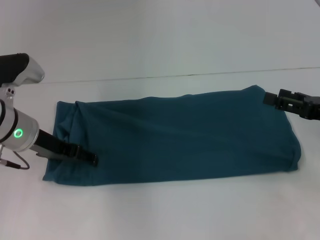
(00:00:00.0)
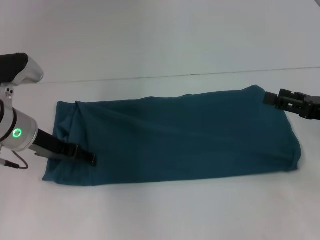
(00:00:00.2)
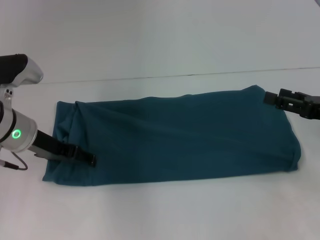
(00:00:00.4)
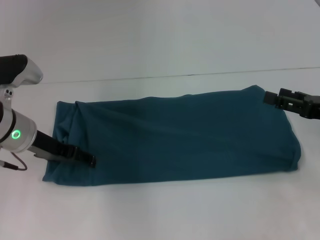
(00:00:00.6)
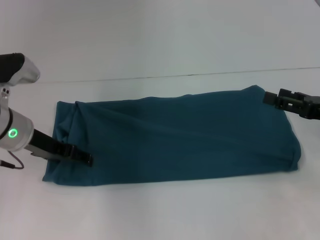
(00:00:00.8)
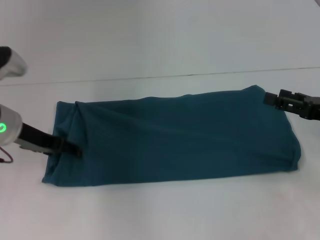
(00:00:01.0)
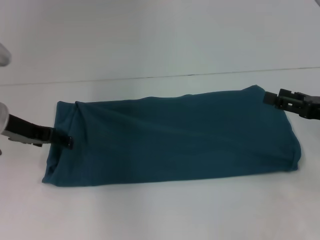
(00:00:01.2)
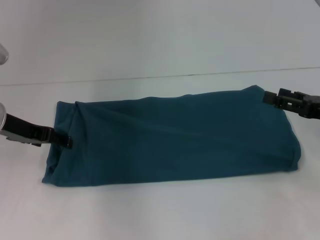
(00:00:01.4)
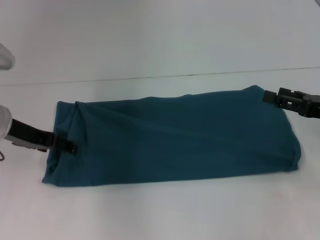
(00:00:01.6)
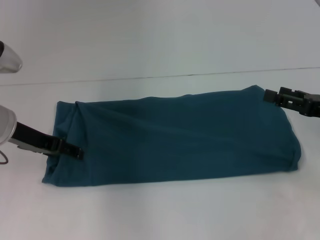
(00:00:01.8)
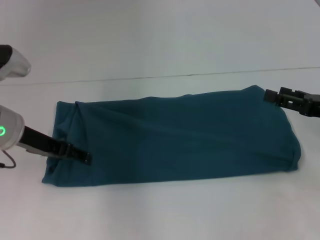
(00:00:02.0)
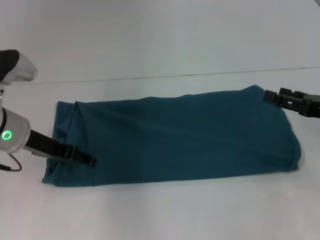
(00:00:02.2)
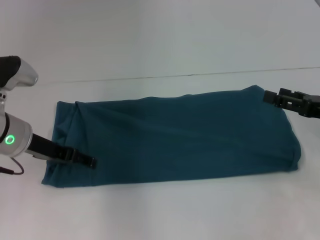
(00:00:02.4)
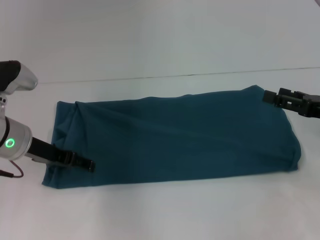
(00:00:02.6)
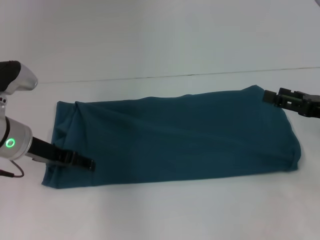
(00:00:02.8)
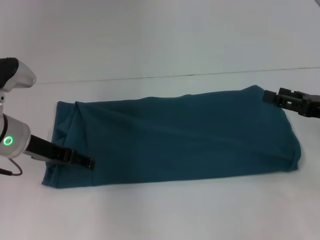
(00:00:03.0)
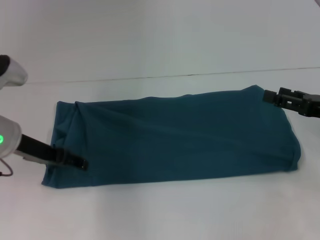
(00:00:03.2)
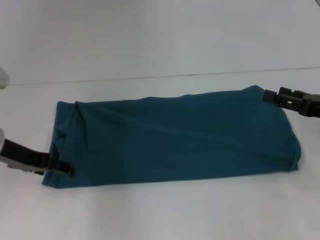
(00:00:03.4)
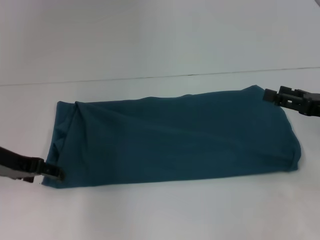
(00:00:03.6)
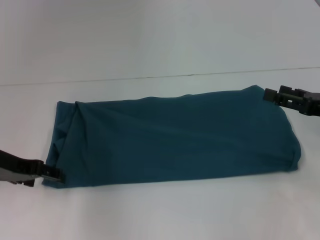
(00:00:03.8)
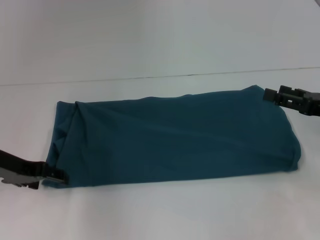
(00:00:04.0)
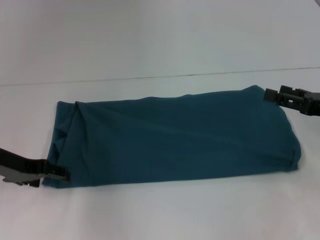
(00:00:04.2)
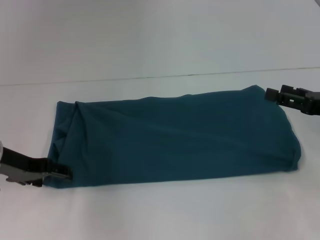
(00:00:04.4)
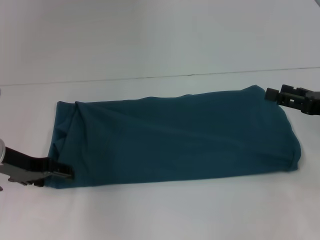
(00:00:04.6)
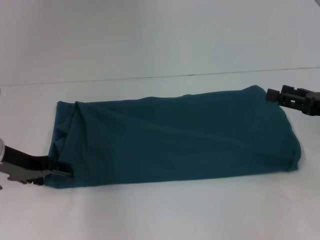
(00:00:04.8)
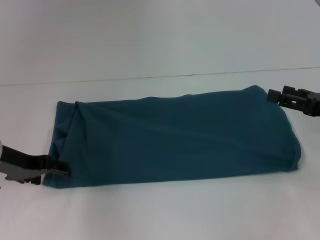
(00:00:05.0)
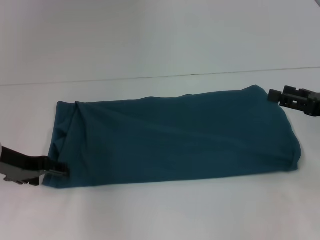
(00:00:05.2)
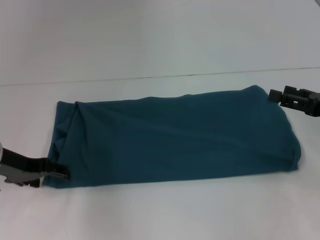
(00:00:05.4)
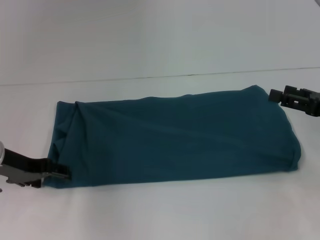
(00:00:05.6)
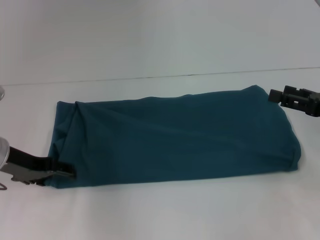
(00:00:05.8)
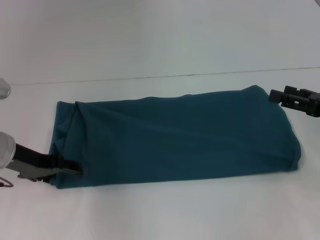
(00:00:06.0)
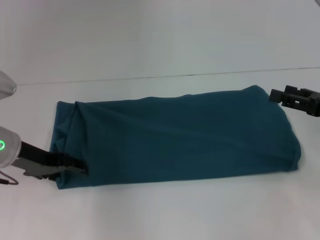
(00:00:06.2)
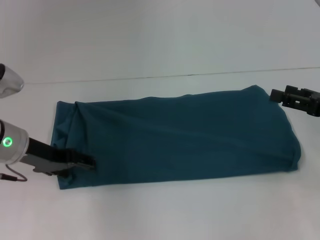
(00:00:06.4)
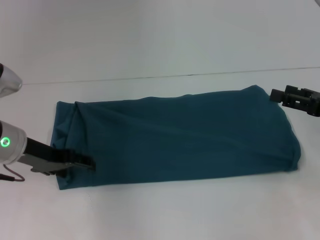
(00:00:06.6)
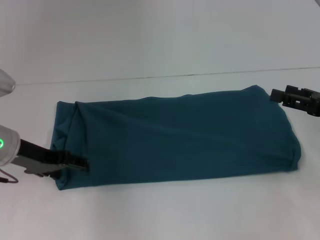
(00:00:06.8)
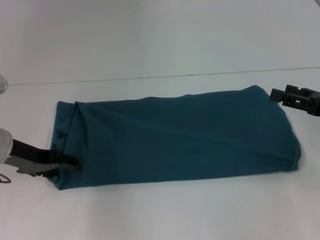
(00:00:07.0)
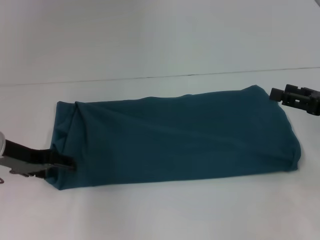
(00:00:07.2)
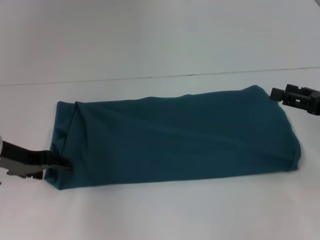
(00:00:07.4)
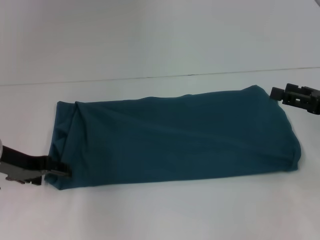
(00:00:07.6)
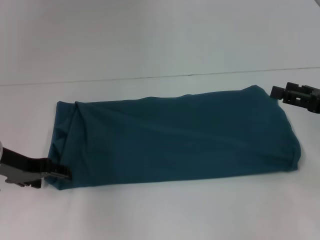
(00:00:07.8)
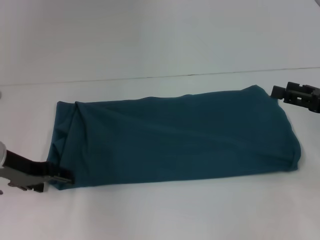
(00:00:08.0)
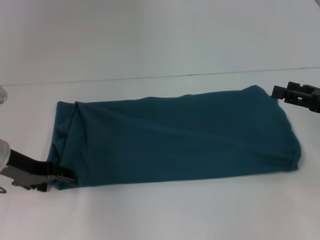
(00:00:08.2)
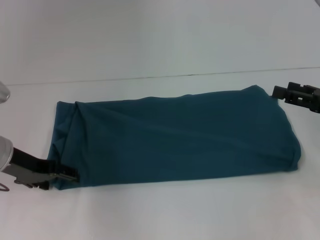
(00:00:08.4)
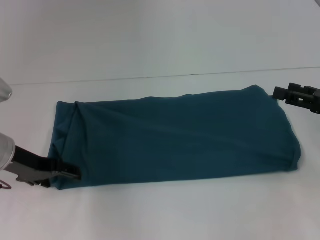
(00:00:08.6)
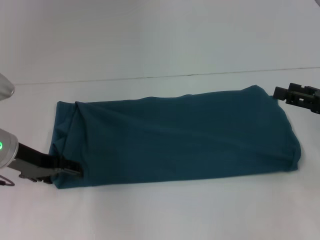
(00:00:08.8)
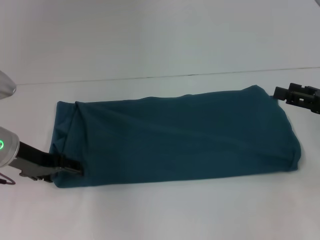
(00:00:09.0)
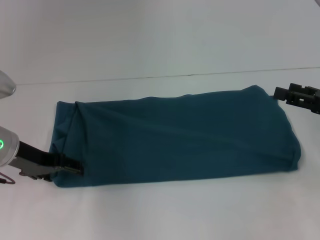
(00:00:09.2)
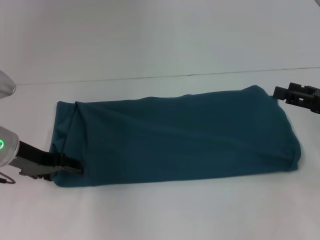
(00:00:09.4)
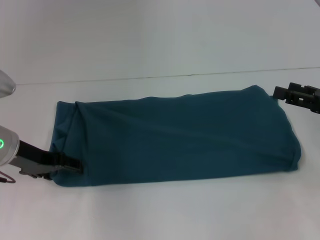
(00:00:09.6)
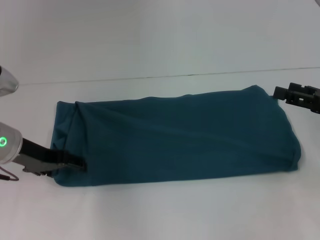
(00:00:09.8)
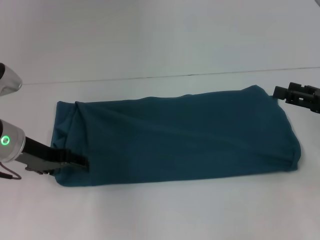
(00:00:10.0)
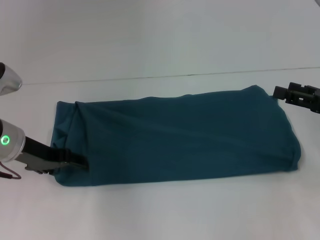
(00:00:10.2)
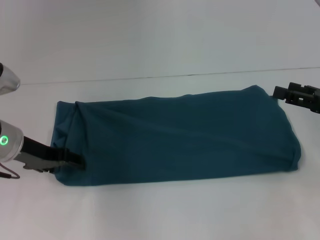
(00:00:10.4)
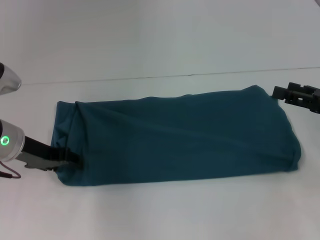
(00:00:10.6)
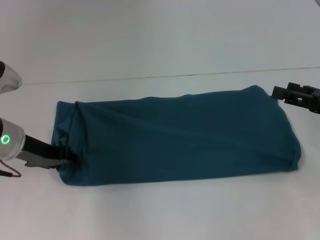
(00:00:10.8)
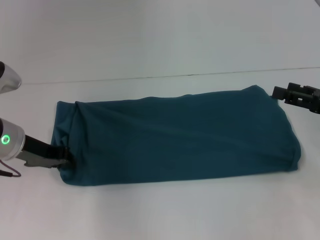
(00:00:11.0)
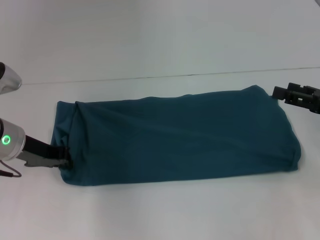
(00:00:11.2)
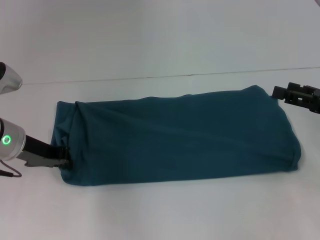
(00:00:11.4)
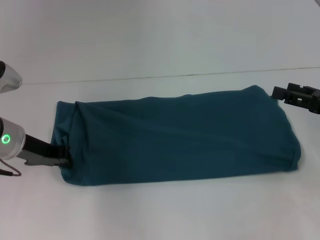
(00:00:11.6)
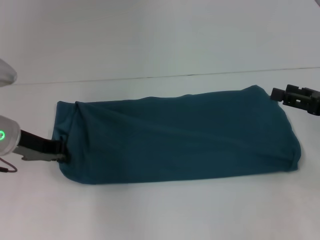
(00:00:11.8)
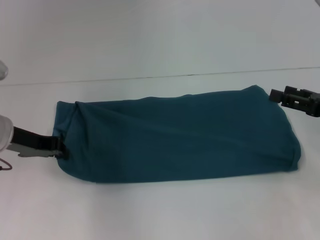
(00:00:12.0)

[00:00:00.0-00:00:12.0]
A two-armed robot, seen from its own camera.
00:00:00.0 to 00:00:03.0: The grippers stay close to where they were, moving slightly.
00:00:03.0 to 00:00:09.0: The grippers make only small movements.
00:00:09.0 to 00:00:10.4: The two grippers keep their place.
00:00:10.4 to 00:00:12.0: The left gripper closes.

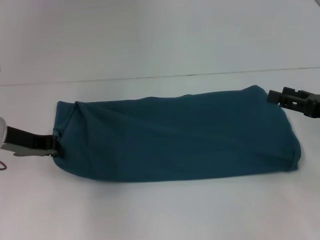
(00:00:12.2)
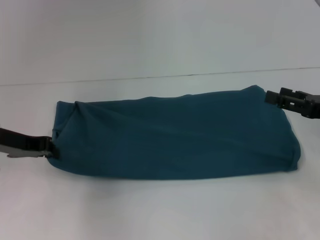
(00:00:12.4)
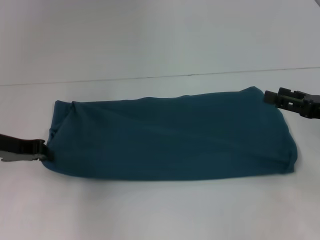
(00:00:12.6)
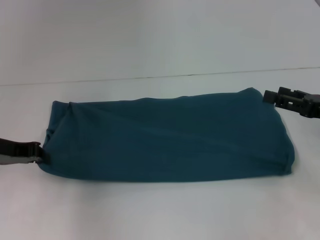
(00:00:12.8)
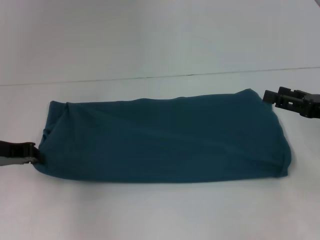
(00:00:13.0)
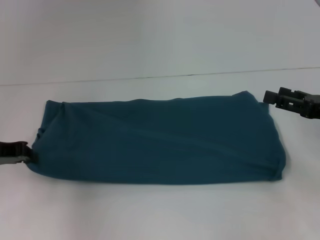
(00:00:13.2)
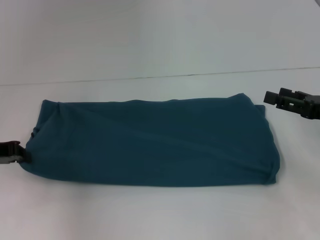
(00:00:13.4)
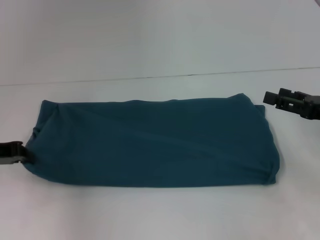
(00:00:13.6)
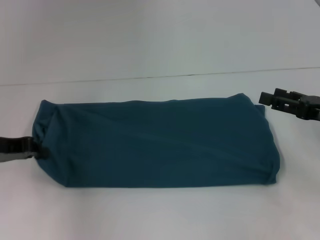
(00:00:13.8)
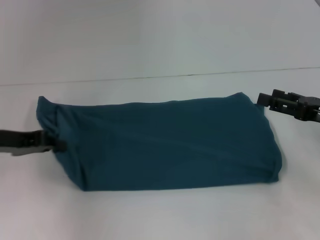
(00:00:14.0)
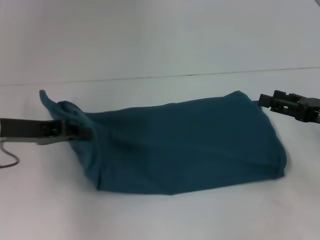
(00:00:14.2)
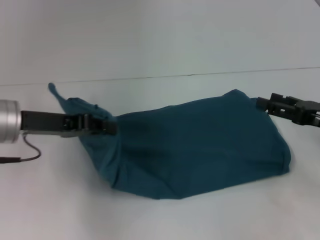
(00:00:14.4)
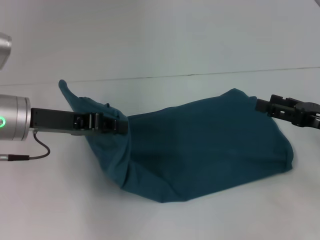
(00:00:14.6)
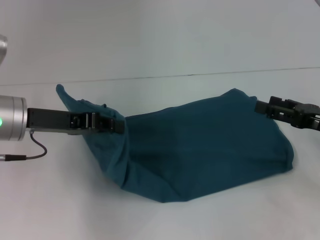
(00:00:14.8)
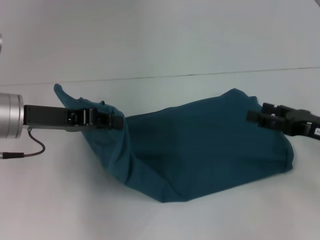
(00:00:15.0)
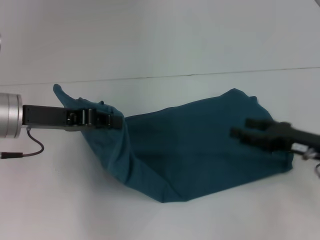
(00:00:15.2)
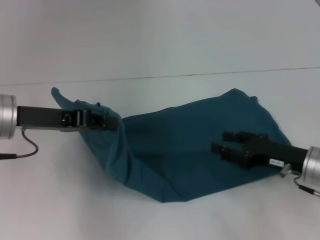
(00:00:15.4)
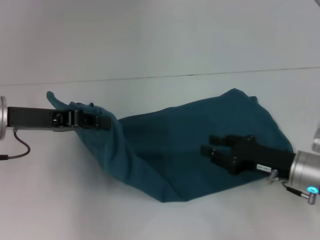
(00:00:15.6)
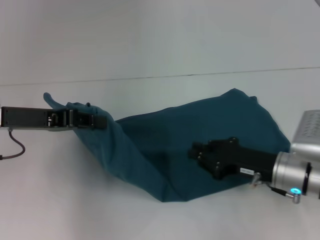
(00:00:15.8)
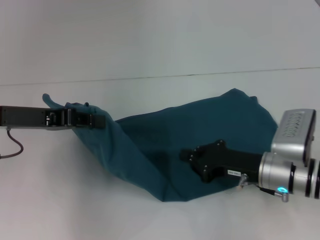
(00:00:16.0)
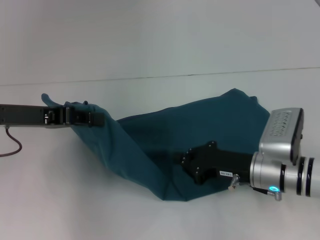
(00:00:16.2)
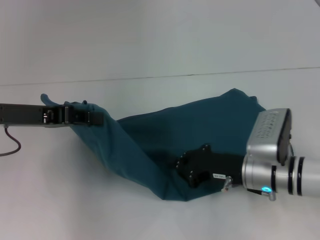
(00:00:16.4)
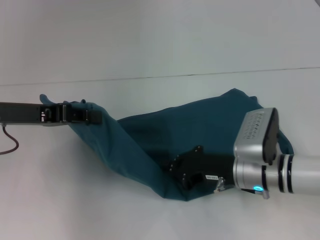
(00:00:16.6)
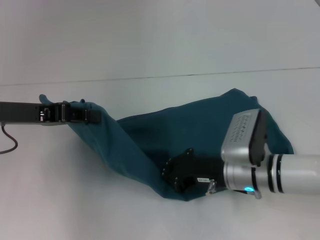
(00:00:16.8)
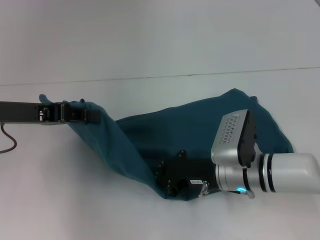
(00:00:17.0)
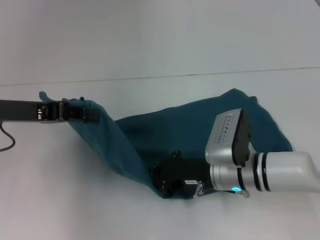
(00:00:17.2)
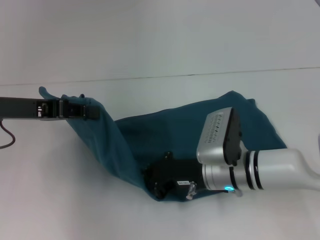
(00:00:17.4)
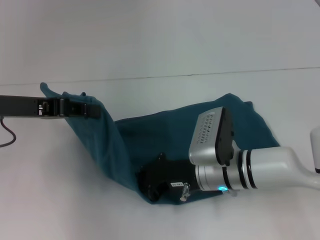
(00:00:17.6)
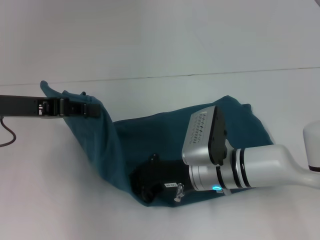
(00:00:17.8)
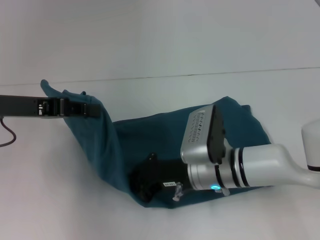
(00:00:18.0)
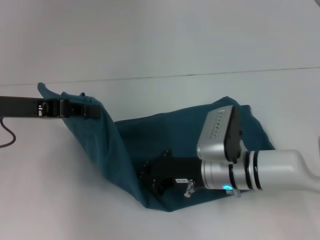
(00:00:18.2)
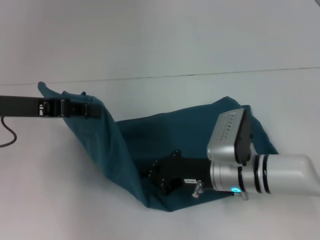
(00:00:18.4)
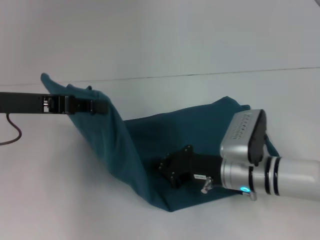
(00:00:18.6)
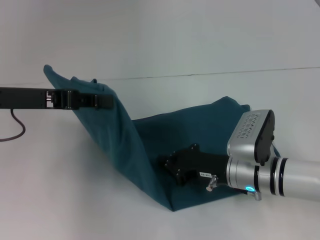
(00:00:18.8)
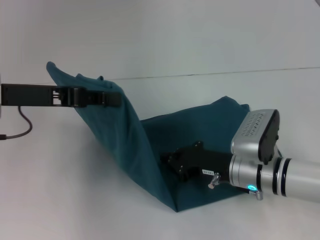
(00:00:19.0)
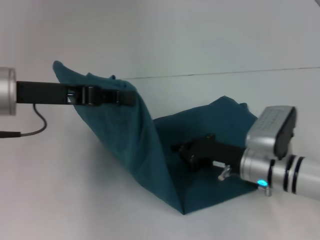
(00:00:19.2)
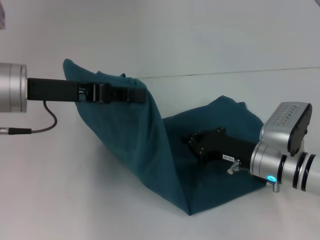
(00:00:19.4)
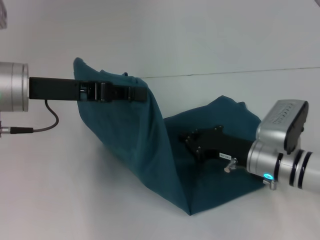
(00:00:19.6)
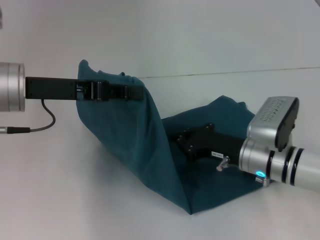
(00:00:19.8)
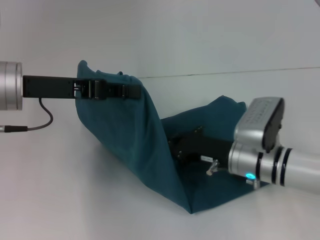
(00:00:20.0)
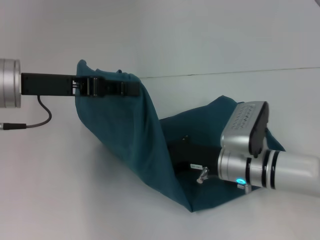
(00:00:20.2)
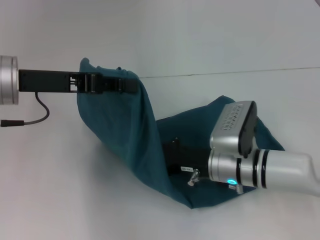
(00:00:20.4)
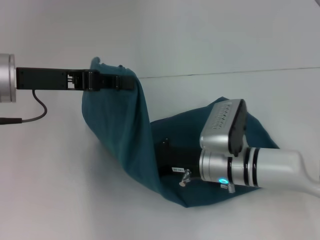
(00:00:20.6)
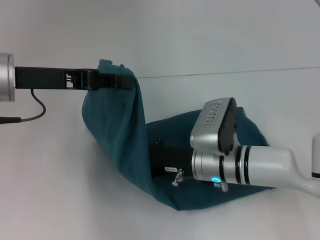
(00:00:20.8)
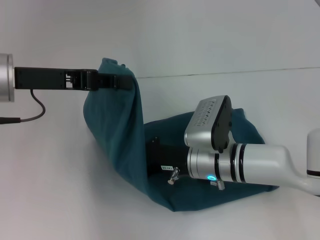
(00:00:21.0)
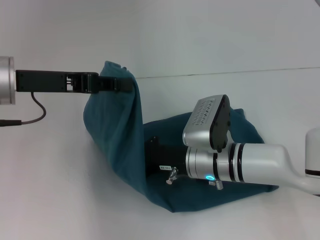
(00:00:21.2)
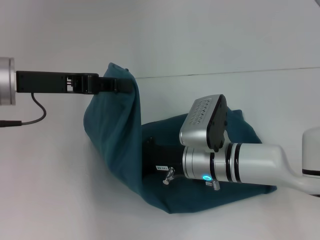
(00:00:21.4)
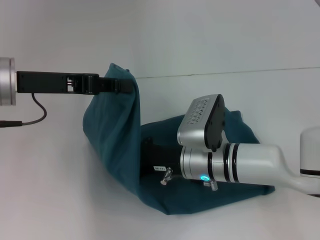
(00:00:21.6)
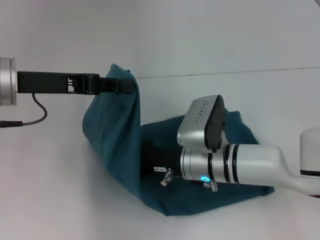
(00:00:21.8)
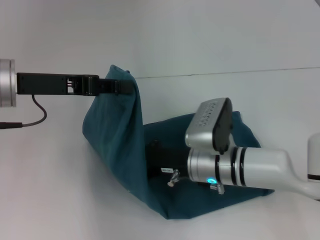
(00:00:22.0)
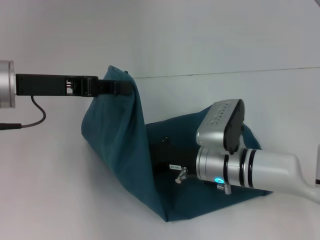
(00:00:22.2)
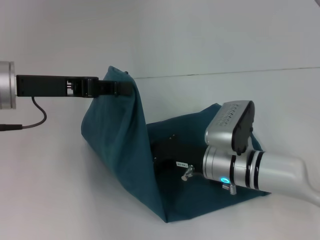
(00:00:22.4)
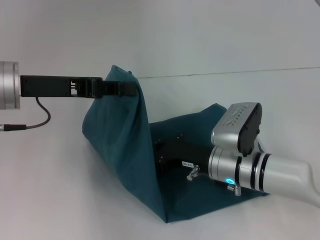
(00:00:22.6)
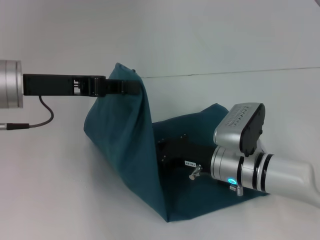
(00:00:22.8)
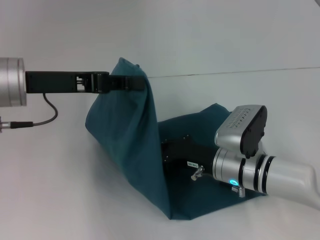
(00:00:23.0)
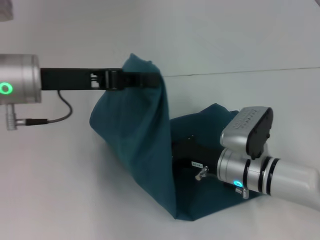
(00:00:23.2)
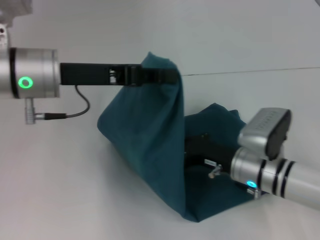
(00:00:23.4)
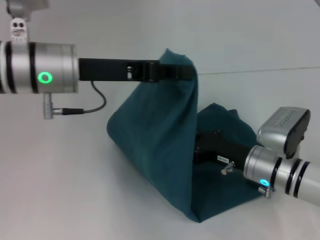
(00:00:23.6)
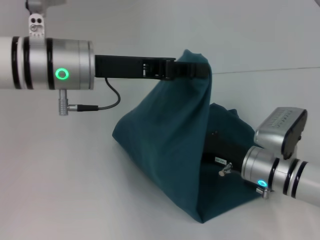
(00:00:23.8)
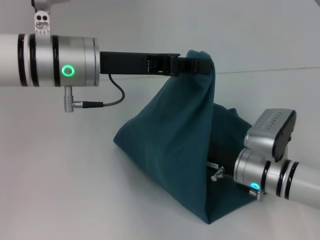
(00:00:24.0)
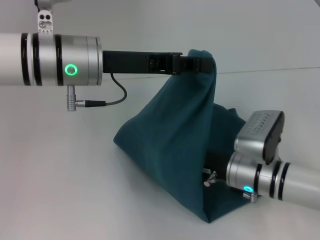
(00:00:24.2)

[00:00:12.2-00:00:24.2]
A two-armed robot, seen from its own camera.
00:00:13.8 to 00:00:15.2: The right gripper moves approximately 5 cm; the left gripper is displaced to the right by approximately 10 cm.
00:00:15.2 to 00:00:16.6: The right gripper is displaced to the left by roughly 10 cm, and closes.
00:00:16.6 to 00:00:18.2: The right gripper shifts by approximately 5 cm.
00:00:18.2 to 00:00:19.8: The right gripper moves to the right, about 5 cm, while the left gripper ends up approximately 5 cm from where it was.
00:00:19.8 to 00:00:21.2: The right gripper travels to the left by about 10 cm.
00:00:21.2 to 00:00:22.6: The grippers stay close to where they were, moving slightly.
00:00:22.6 to 00:00:24.2: The left gripper travels to the right by approximately 10 cm.
